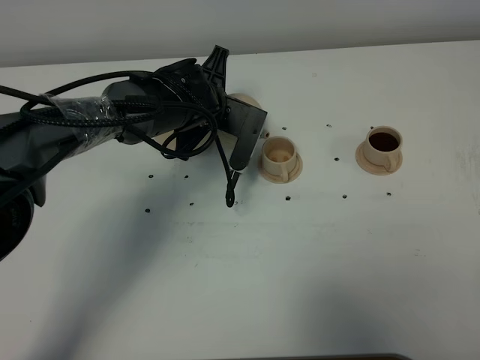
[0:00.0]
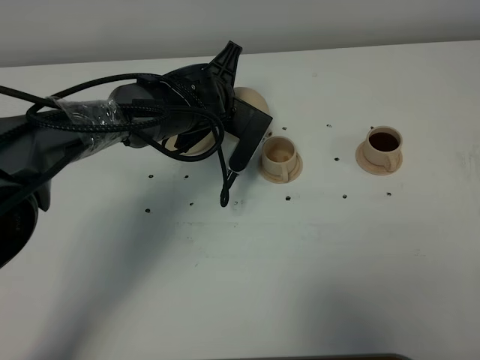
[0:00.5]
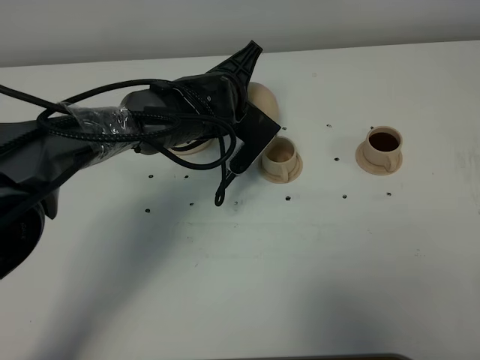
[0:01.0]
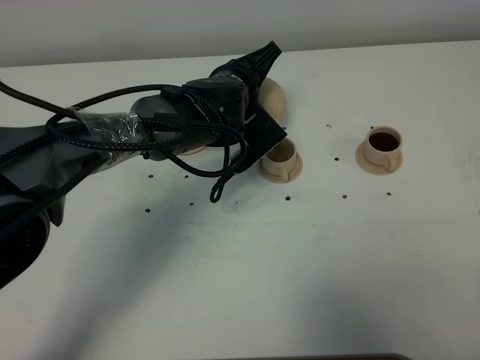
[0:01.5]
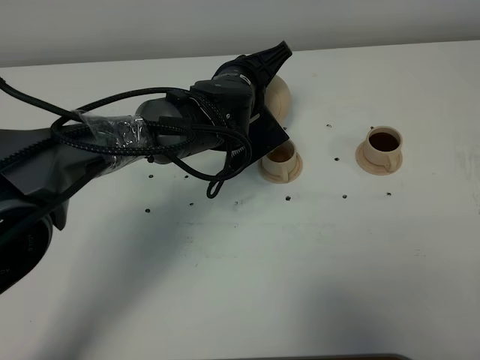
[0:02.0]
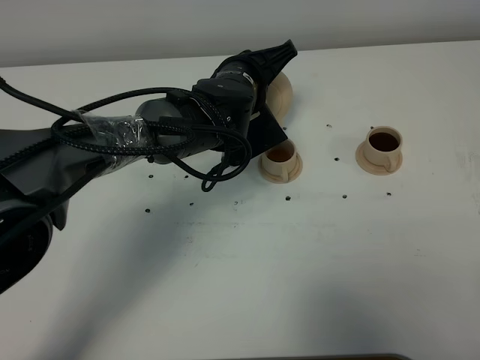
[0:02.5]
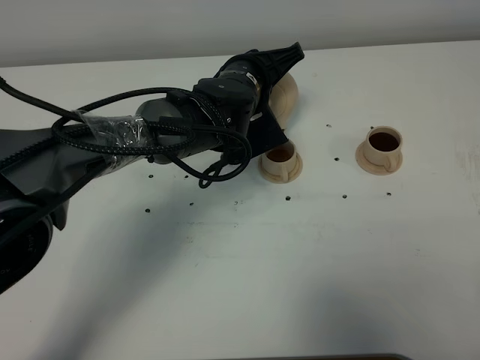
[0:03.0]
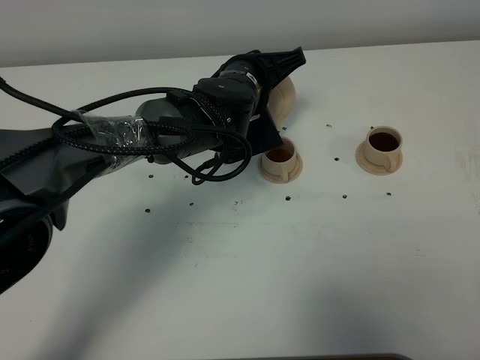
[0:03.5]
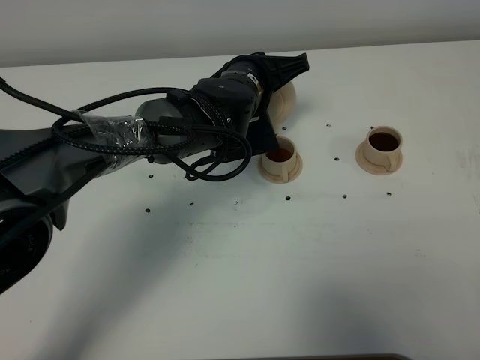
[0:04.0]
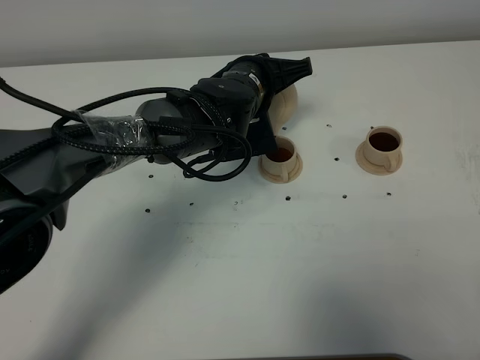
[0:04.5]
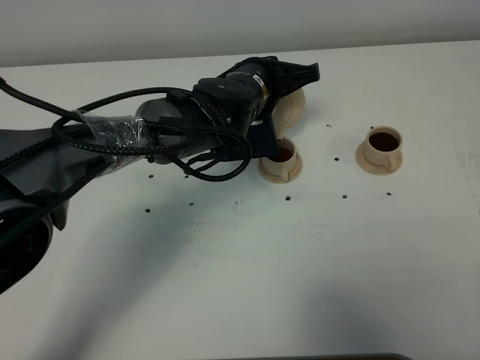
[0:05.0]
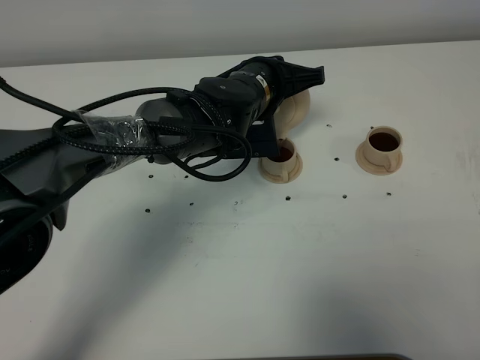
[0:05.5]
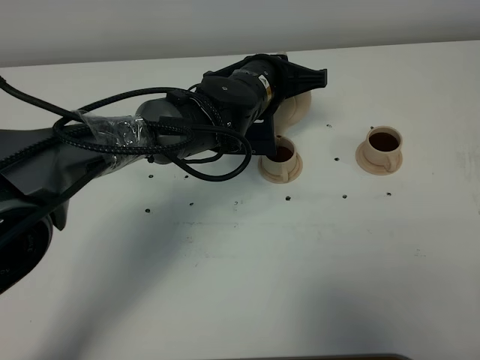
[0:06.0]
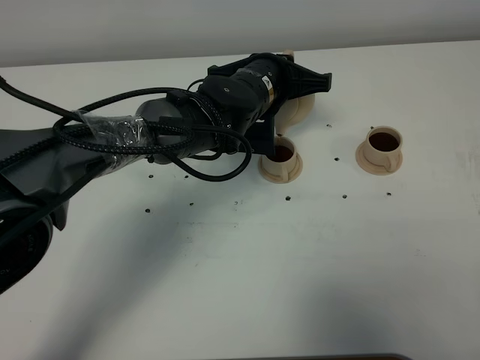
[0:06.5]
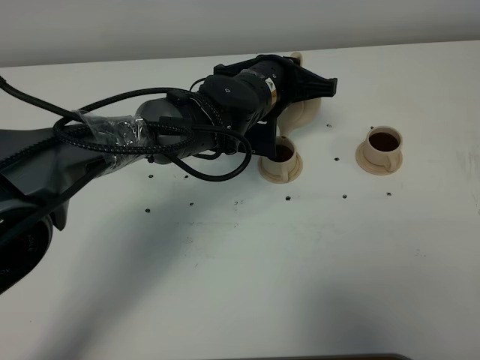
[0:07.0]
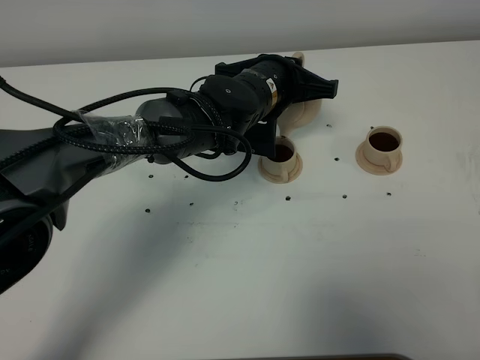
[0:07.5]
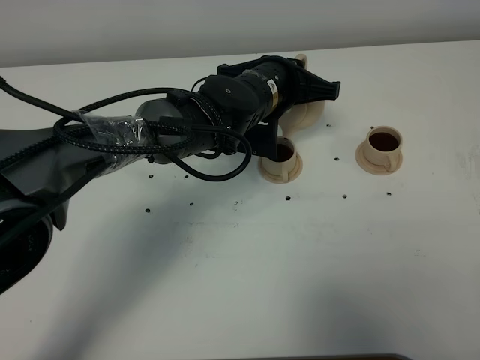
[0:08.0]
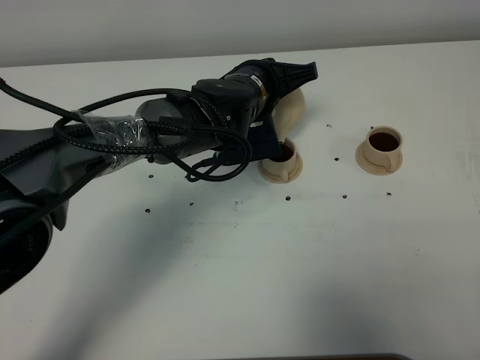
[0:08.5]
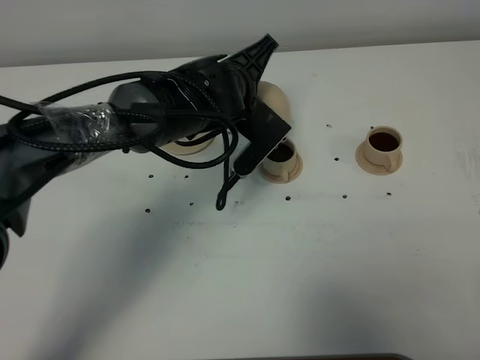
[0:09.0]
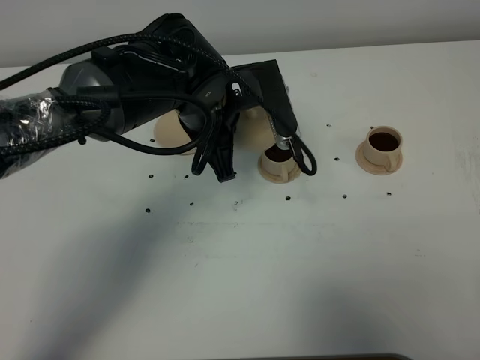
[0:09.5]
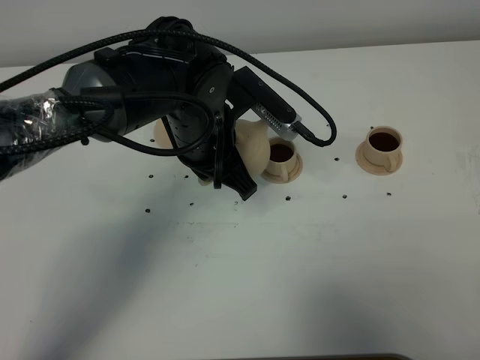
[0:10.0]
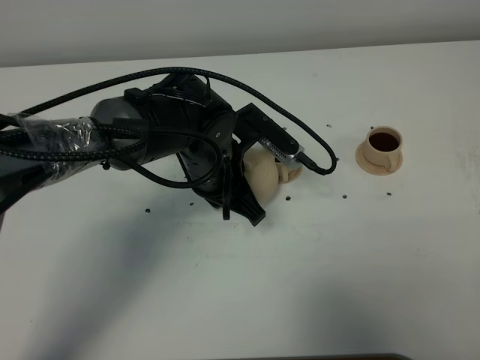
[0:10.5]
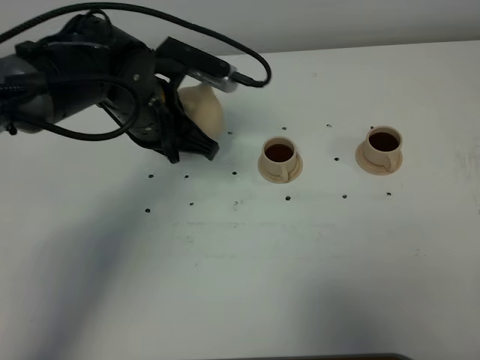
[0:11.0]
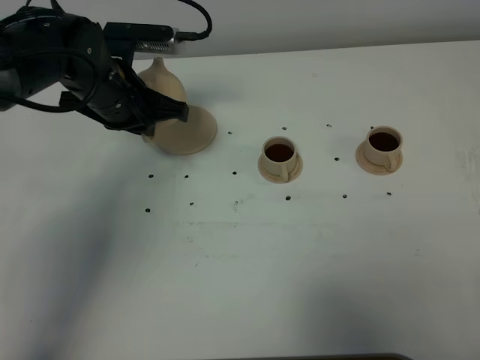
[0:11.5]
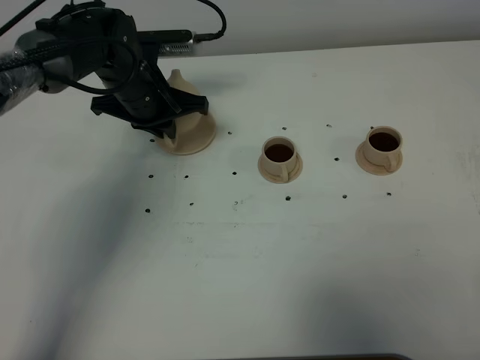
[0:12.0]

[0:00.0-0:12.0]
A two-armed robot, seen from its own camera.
Task of the whole recording: grasp the brown teapot and pour the tea into the two brown teacups one by one, put the brown teapot back in its original place.
Step, 0:00.0 to 0:08.5: Pour tea into the teacup with the left gripper.
0:00.0 to 0:02.0: The left gripper ends up some 5 cm from where it was.
0:02.0 to 0:04.0: The grippers move only a little.
0:04.0 to 0:06.0: The grippers make only small movements.
0:06.0 to 0:08.0: There are only small adjustments of the grippers.
0:08.0 to 0:10.0: The left gripper goes some 10 cm to the left and backward.
0:10.0 to 0:12.0: The left gripper moves forward and to the left, approximately 15 cm.

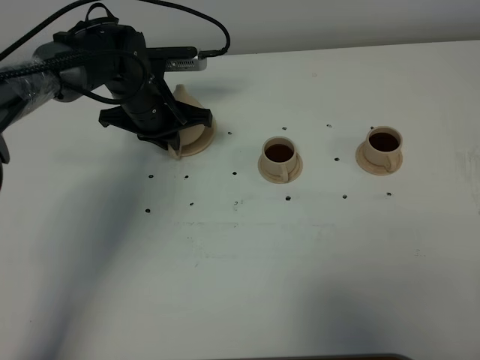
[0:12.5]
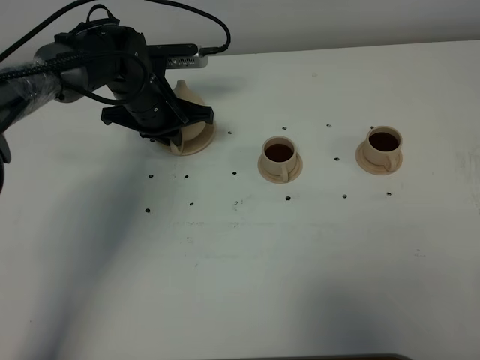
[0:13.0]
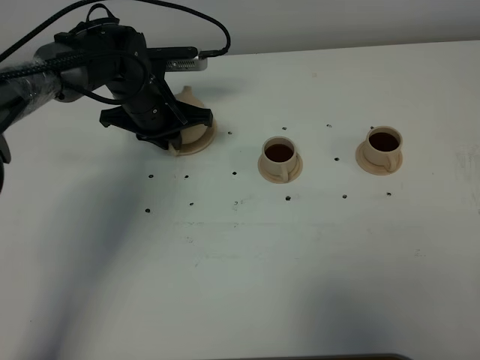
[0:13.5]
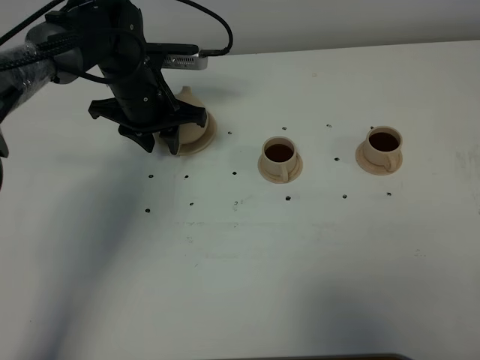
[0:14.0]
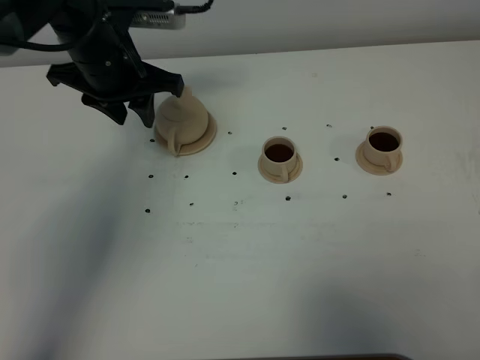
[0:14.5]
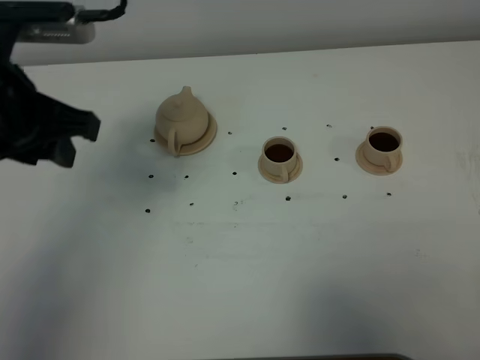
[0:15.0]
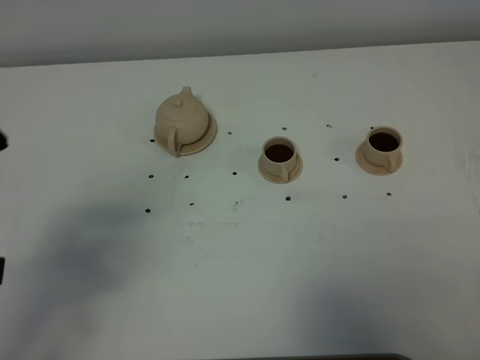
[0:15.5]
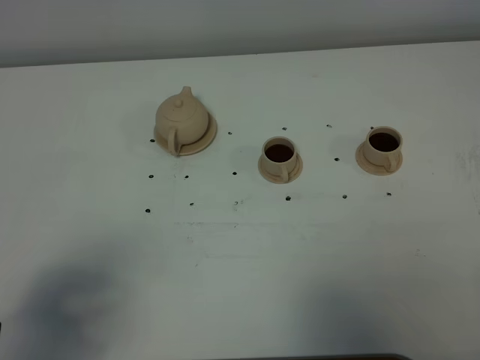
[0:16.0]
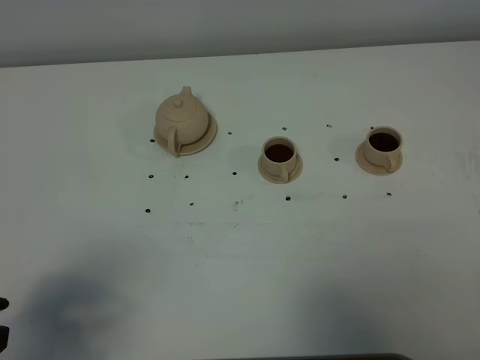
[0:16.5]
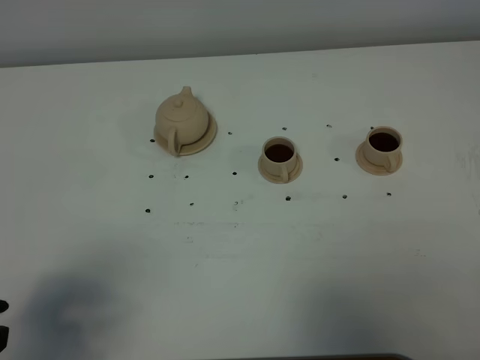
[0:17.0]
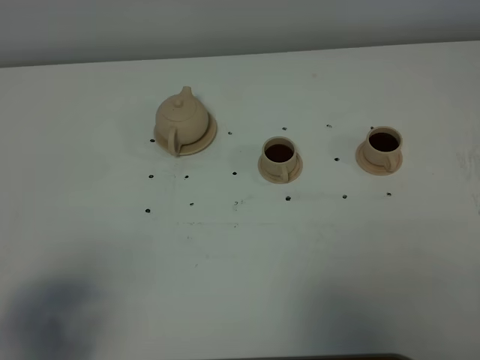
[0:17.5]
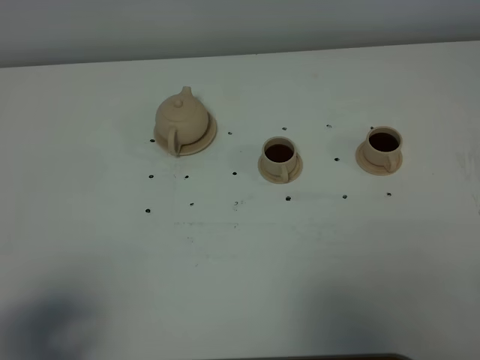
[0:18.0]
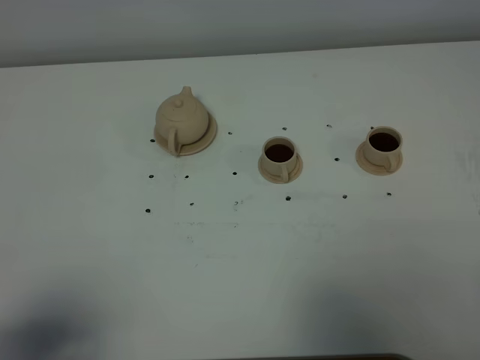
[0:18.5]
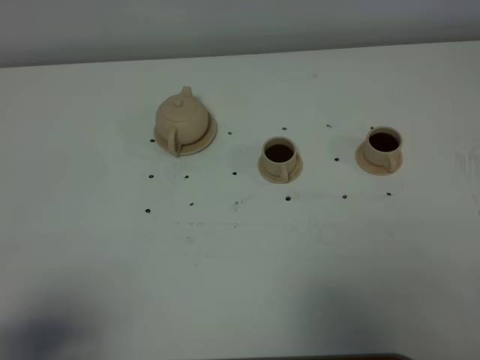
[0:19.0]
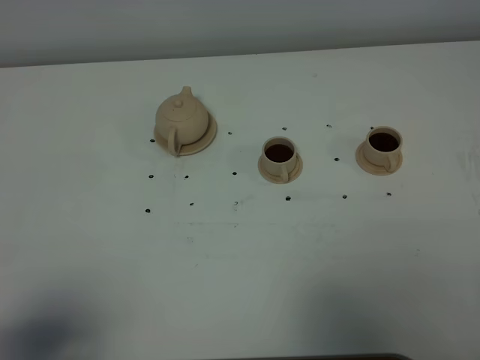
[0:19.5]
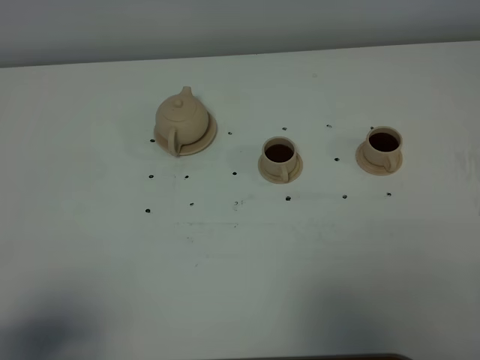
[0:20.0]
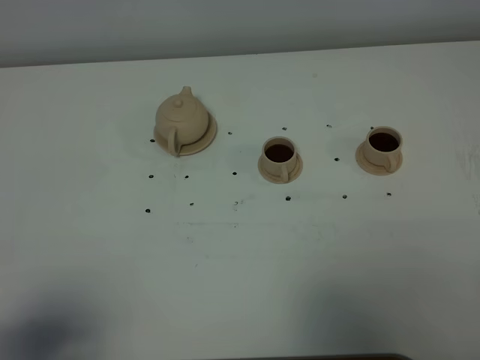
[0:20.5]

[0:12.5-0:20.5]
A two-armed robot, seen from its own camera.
Task of the whole recording: grasp the brown teapot and pour the tea into the two brown teacups one by one, put the brown teapot back in its original place.
0:12.5 to 0:14.5: The left gripper shifts approximately 10 cm upward, and opens its fingers.
0:14.5 to 0:16.5: The left gripper is displaced backward by approximately 35 cm.
0:16.5 to 0:18.5: The left gripper heads backward, covering roughly 5 cm.
0:18.5 to 0:20.5: Both grippers stay about where they are.
